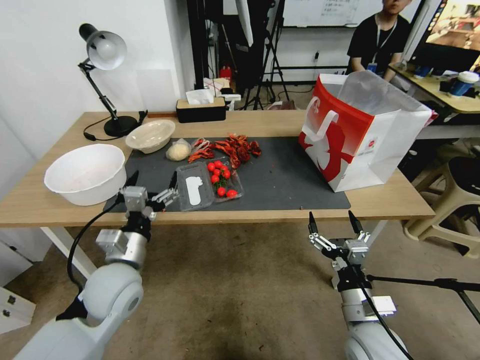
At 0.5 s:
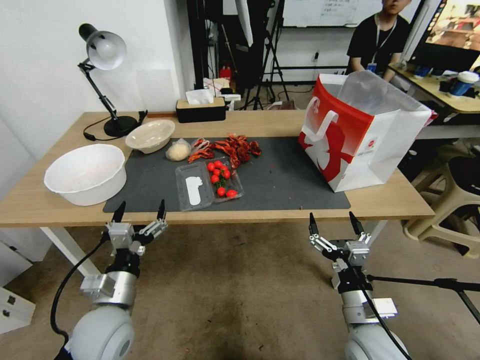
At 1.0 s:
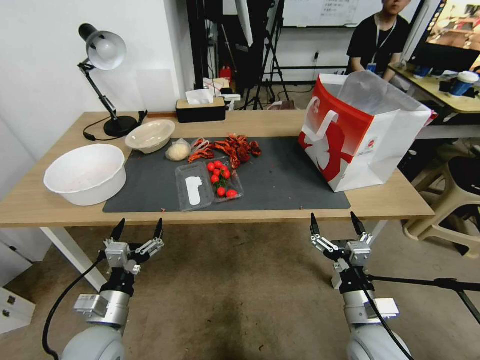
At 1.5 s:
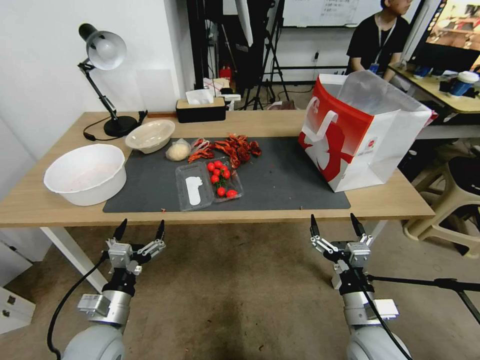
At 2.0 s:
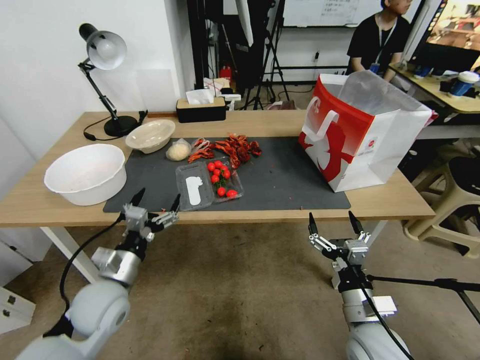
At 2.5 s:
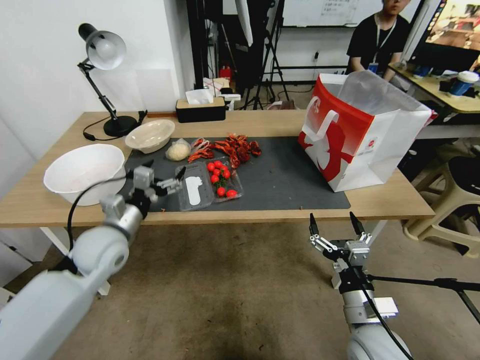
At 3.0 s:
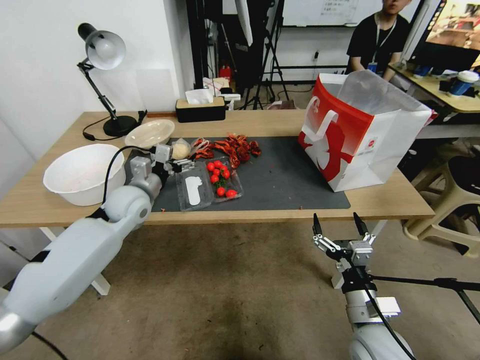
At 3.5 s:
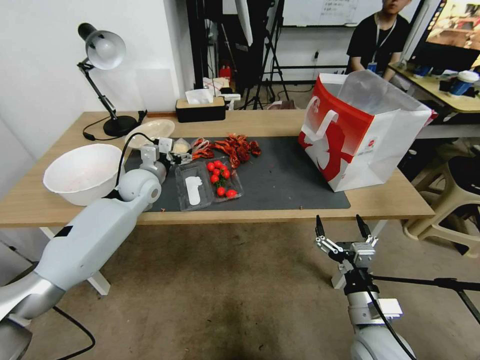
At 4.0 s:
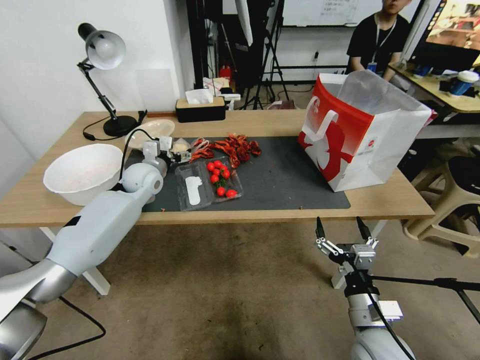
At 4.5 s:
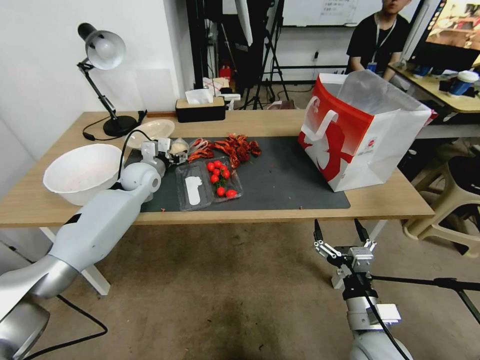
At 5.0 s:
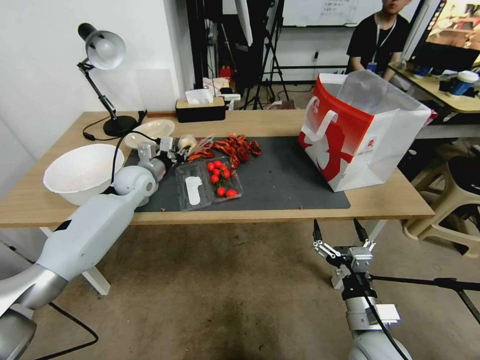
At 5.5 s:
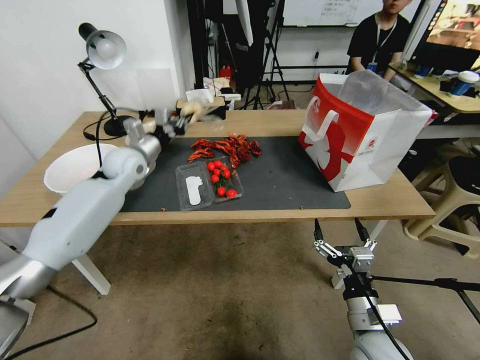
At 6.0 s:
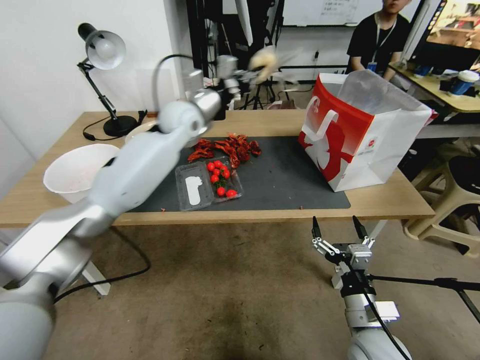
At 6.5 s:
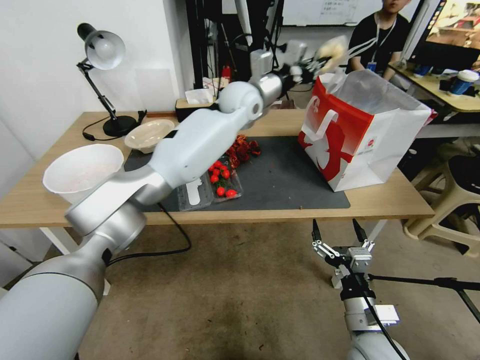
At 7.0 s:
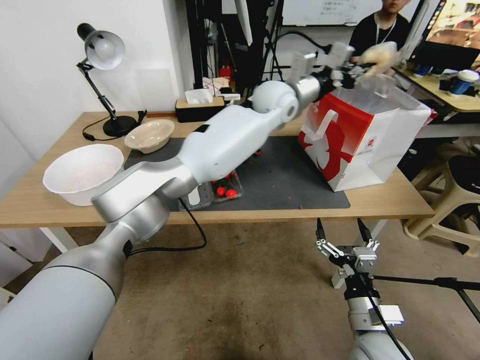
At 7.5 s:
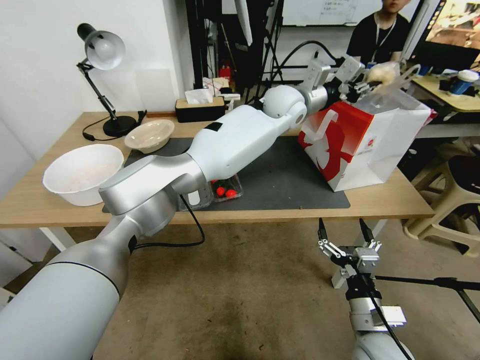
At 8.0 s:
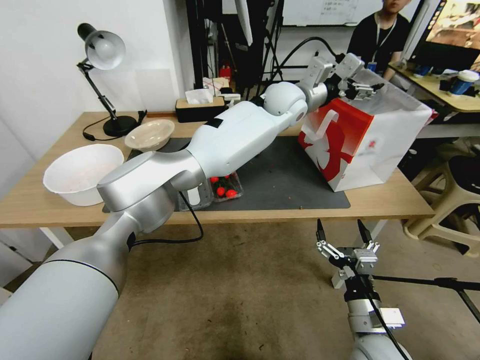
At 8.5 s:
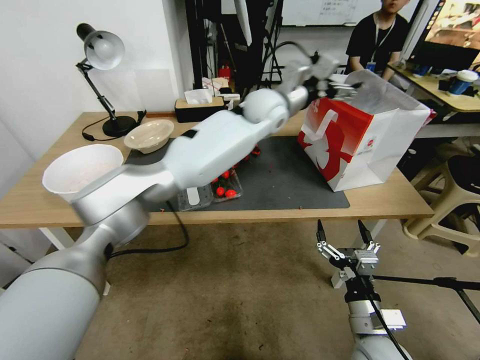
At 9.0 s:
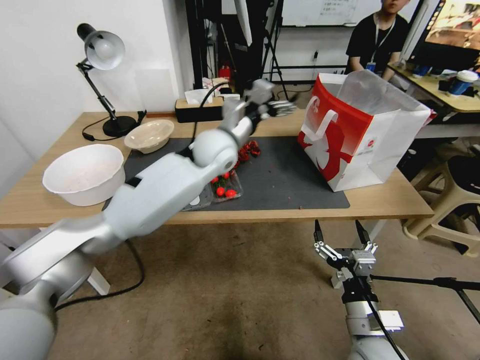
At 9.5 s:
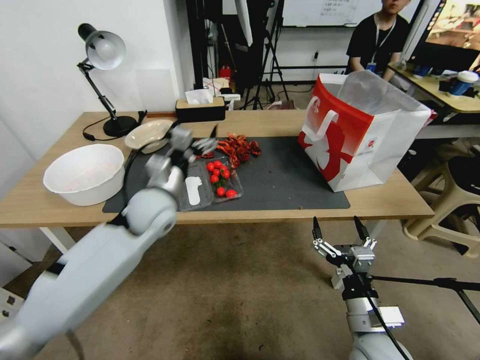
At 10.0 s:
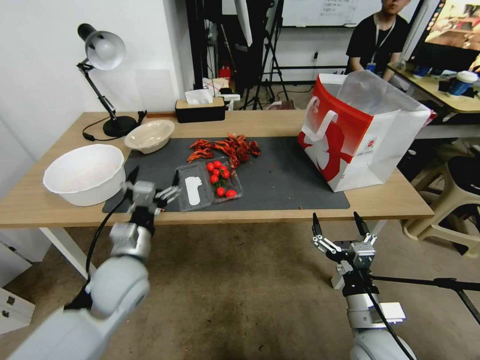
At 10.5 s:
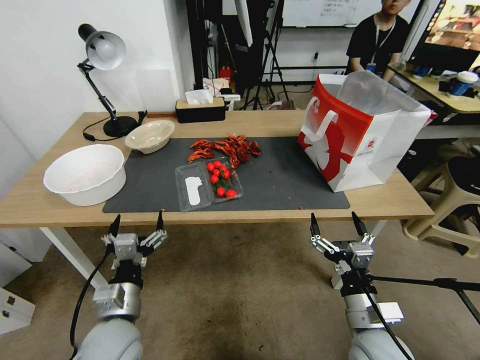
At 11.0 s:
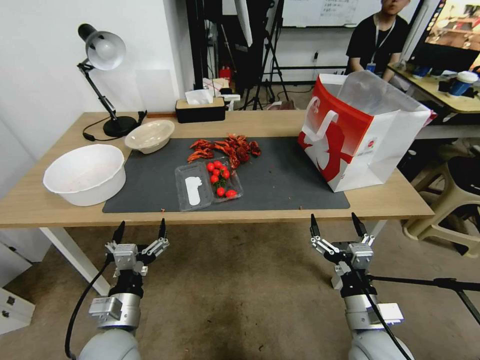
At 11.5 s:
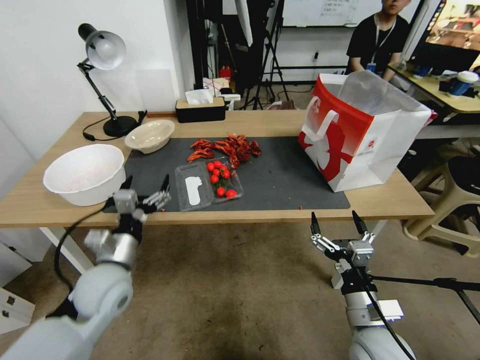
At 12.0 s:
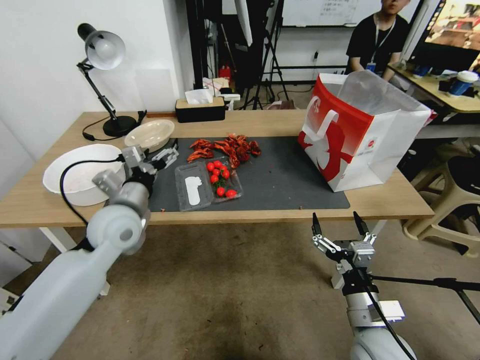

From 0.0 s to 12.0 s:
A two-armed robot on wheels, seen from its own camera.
From 0.0 s to 2.0 s: The left gripper travels backward and downward by approximately 15 cm.
From 2.0 s to 4.0 s: The left gripper moves forward, some 35 cm.
From 4.0 s to 6.0 s: The left gripper travels upward and to the right by approximately 20 cm, and closes.
From 6.0 s to 8.0 s: The left gripper goes about 25 cm to the right, and opens its fingers.
From 8.0 s to 10.0 s: The left gripper shifts some 50 cm to the left, backward and downward.
From 10.0 s to 12.0 s: The left gripper travels backward and back again, roughly 10 cm each way.

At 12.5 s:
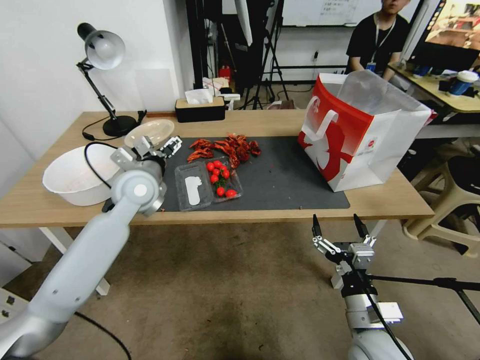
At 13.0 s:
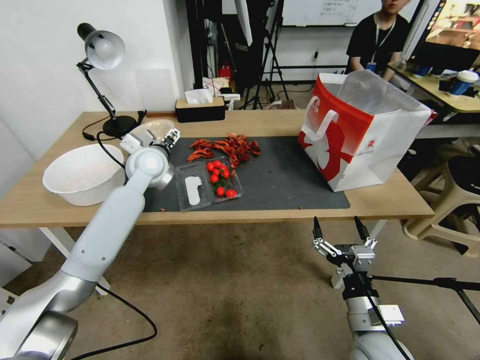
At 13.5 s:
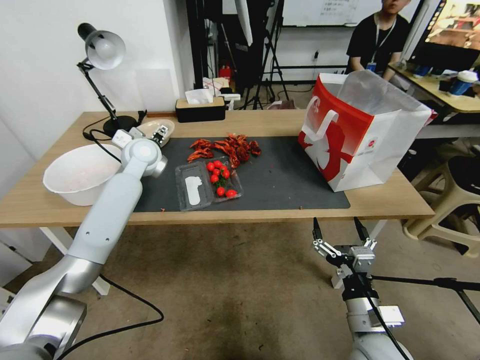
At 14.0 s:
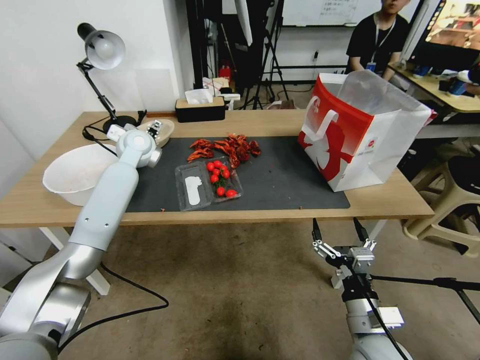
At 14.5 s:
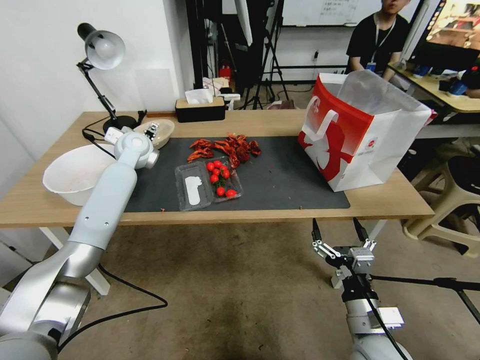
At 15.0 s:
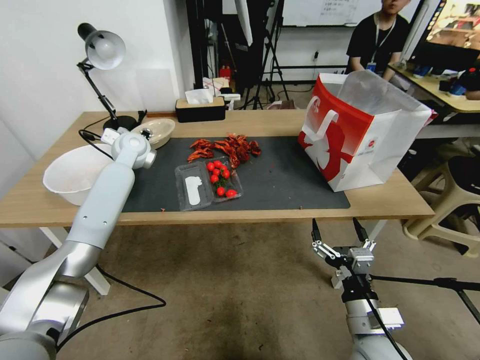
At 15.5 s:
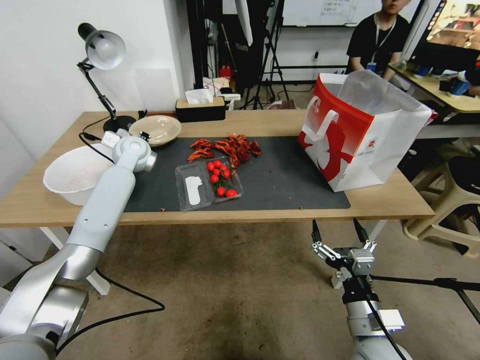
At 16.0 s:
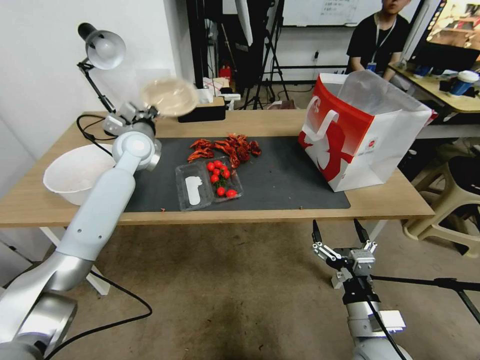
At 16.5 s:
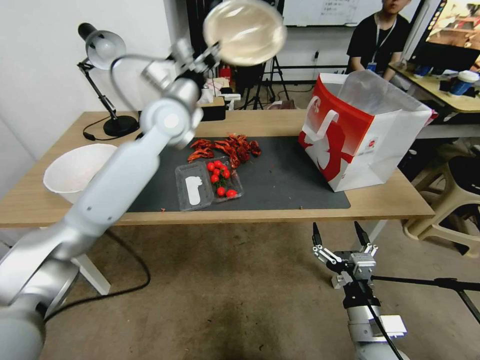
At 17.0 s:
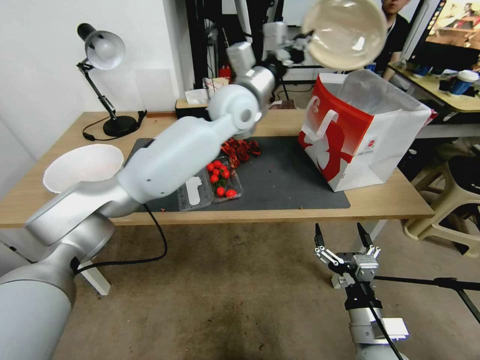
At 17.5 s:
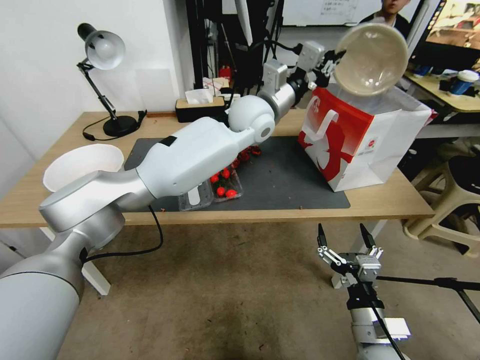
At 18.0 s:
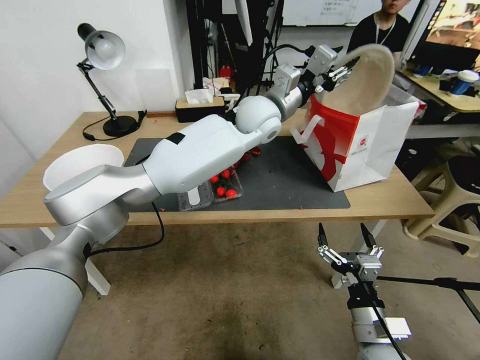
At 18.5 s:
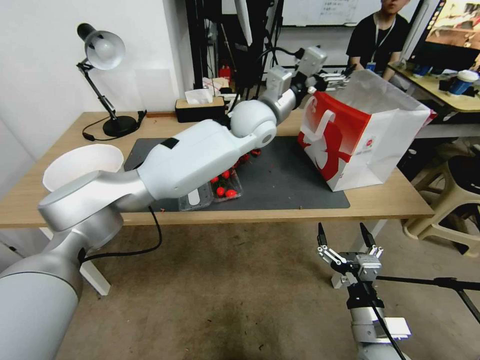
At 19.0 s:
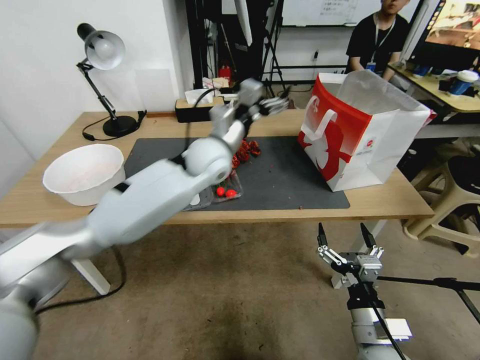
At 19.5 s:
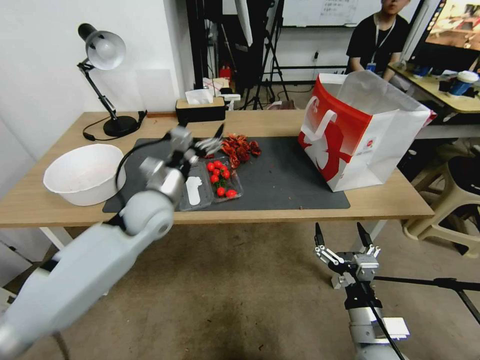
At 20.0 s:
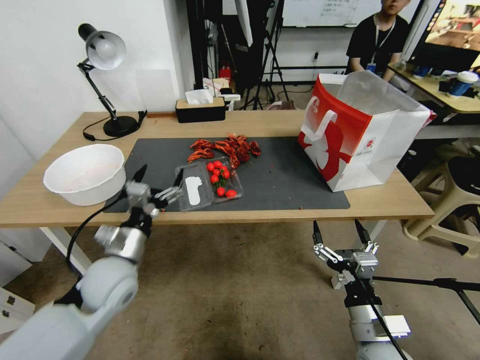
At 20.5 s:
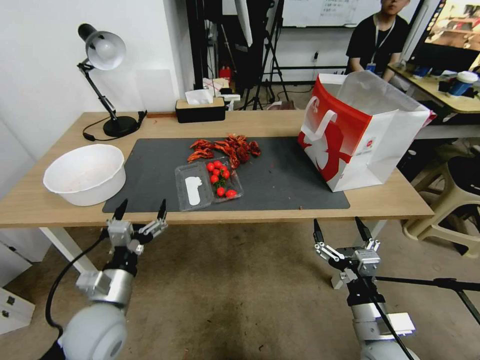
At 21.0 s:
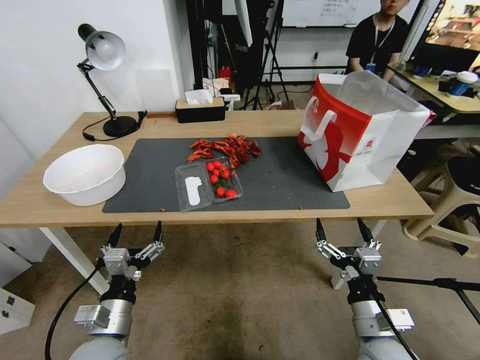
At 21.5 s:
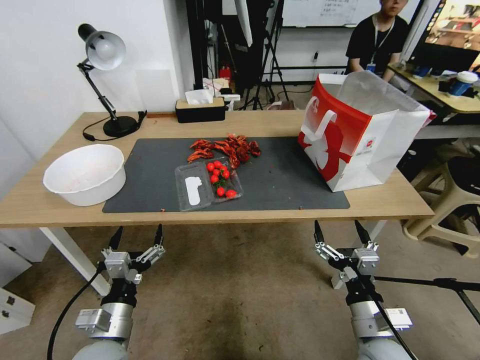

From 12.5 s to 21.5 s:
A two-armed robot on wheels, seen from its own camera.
From 12.5 s to 14.5 s: The left gripper is displaced forward by about 20 cm.
From 14.5 s to 17.0 s: The left gripper moves to the right and upward, approximately 30 cm, and closes up.
From 17.0 s to 19.5 s: The left gripper goes roughly 30 cm downward, to the left and backward, and opens its fingers.
From 19.5 s to 21.5 s: The left gripper travels backward and downward by some 30 cm.
